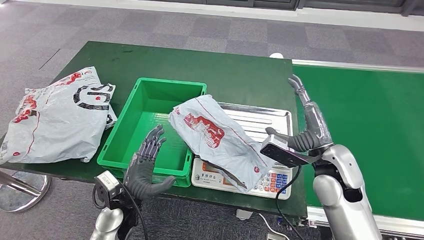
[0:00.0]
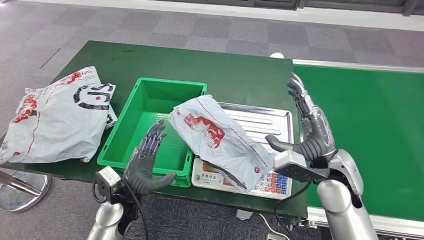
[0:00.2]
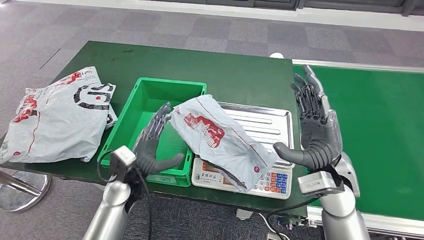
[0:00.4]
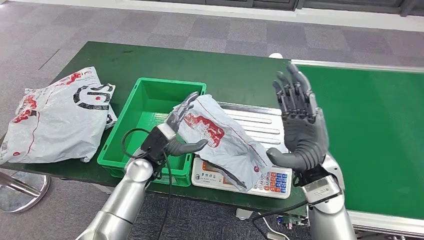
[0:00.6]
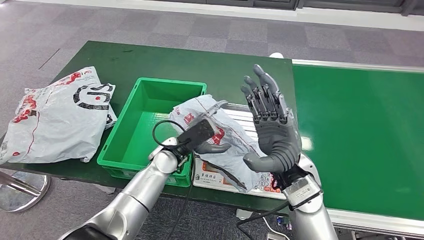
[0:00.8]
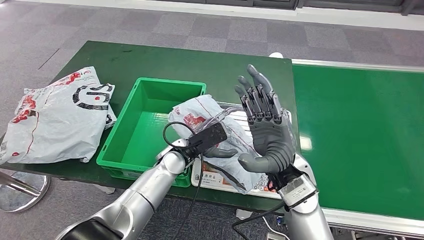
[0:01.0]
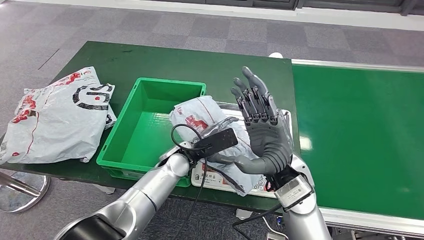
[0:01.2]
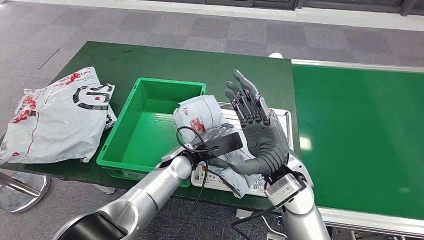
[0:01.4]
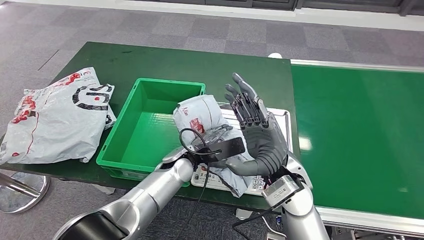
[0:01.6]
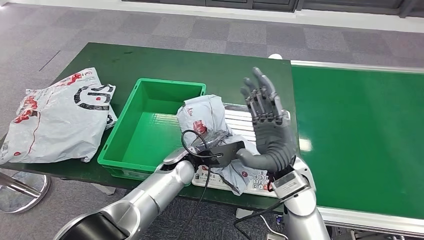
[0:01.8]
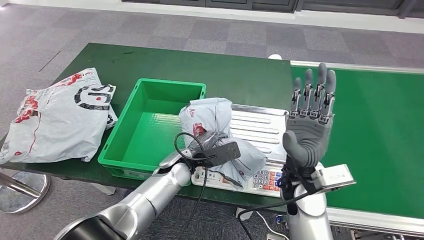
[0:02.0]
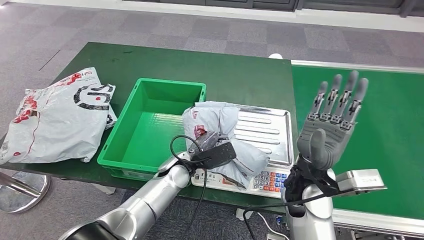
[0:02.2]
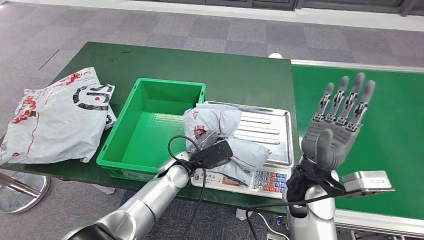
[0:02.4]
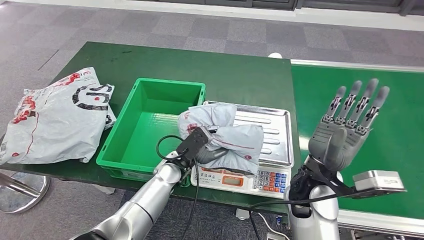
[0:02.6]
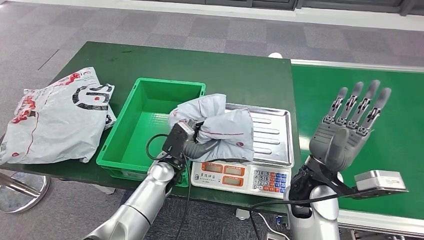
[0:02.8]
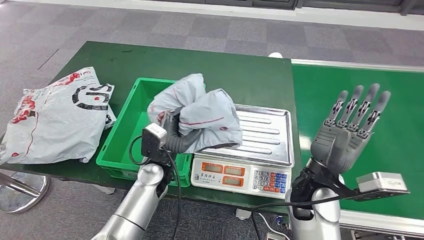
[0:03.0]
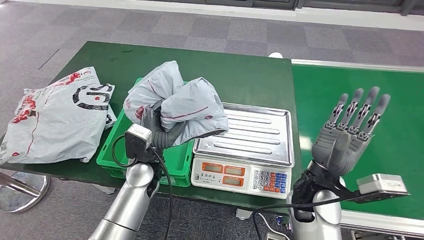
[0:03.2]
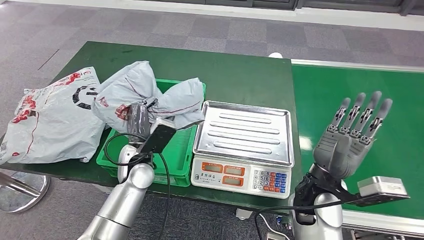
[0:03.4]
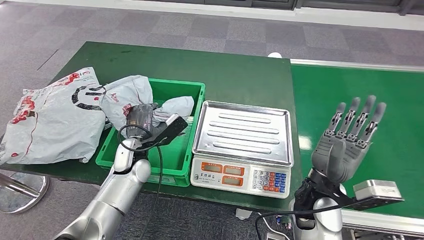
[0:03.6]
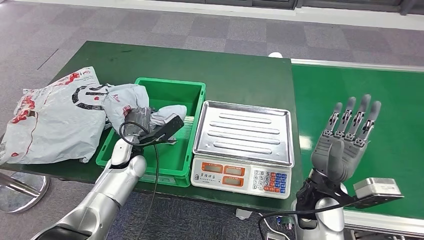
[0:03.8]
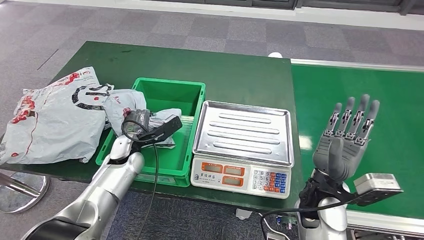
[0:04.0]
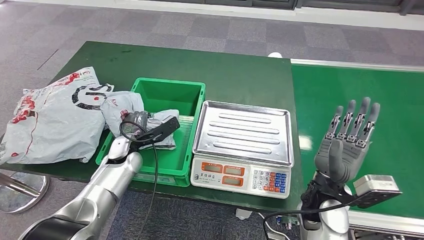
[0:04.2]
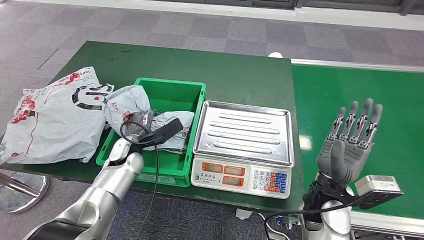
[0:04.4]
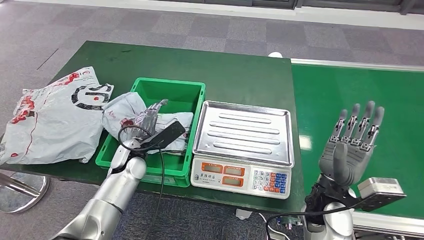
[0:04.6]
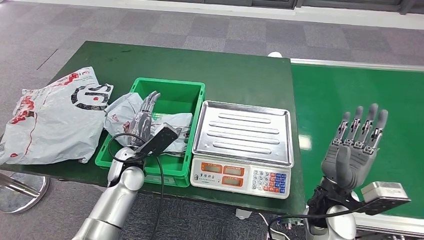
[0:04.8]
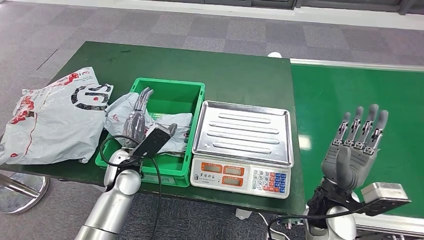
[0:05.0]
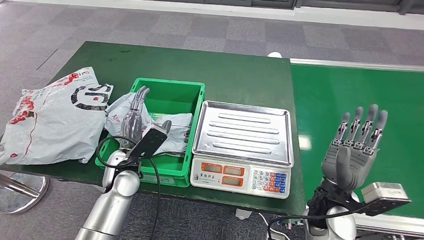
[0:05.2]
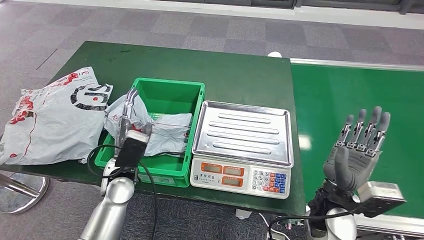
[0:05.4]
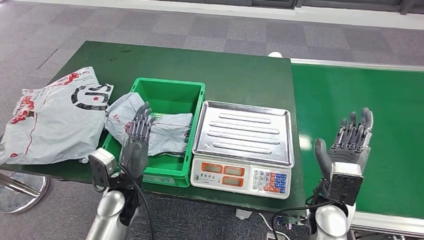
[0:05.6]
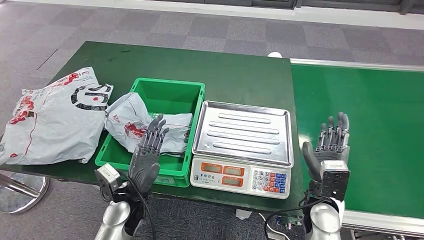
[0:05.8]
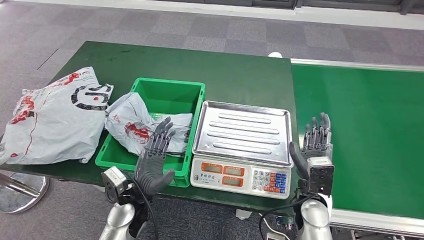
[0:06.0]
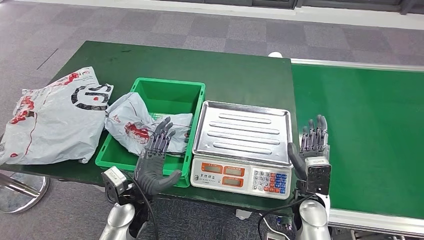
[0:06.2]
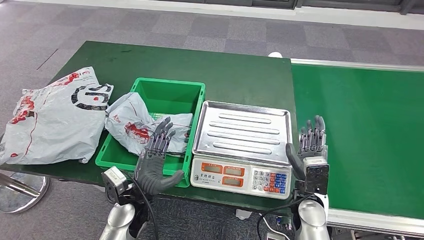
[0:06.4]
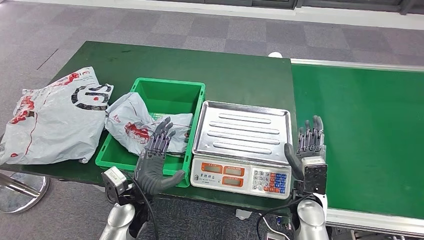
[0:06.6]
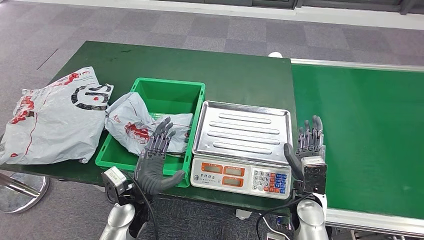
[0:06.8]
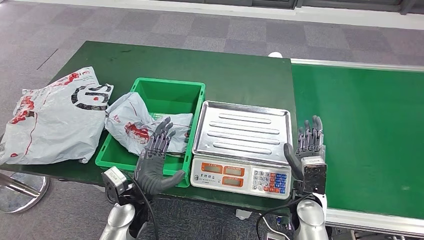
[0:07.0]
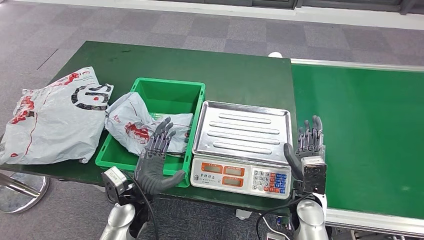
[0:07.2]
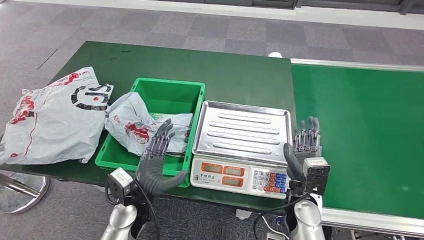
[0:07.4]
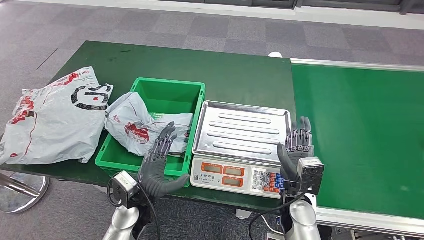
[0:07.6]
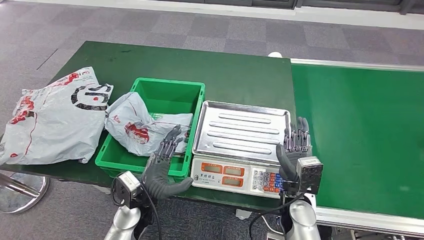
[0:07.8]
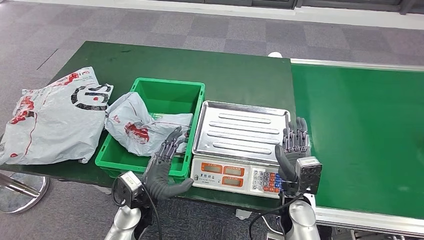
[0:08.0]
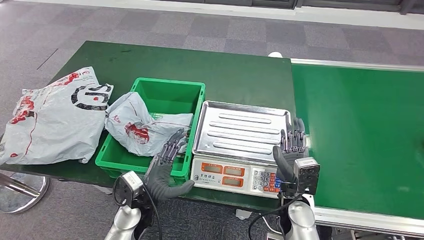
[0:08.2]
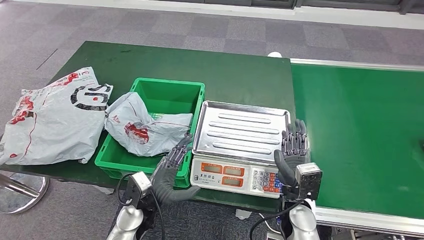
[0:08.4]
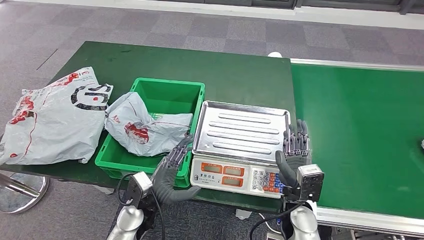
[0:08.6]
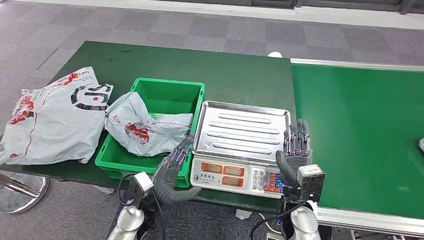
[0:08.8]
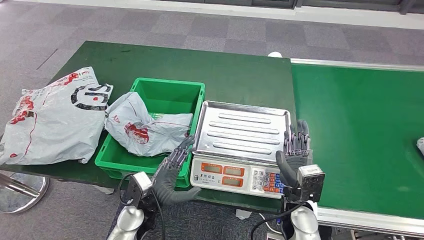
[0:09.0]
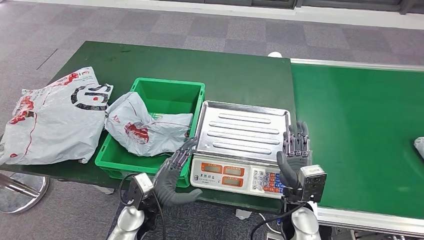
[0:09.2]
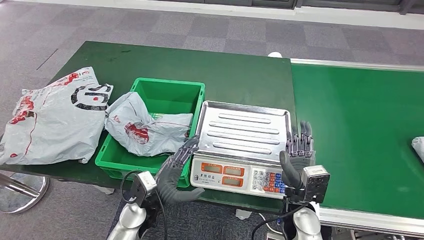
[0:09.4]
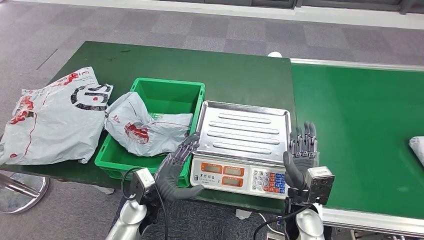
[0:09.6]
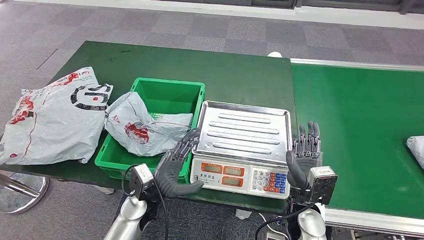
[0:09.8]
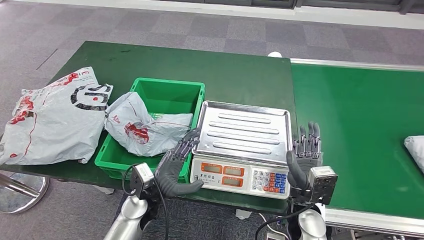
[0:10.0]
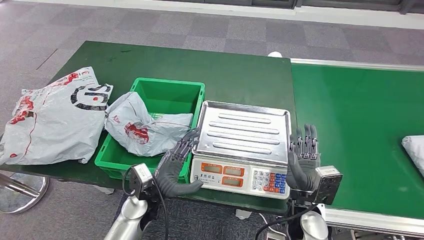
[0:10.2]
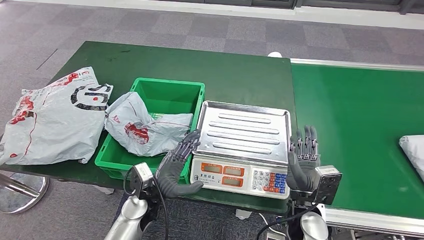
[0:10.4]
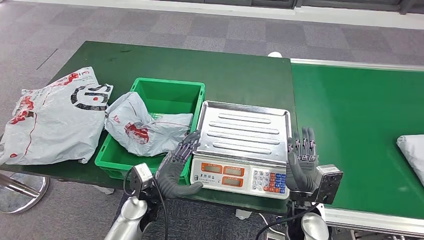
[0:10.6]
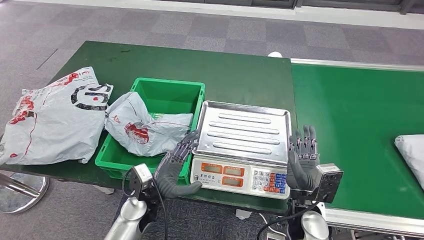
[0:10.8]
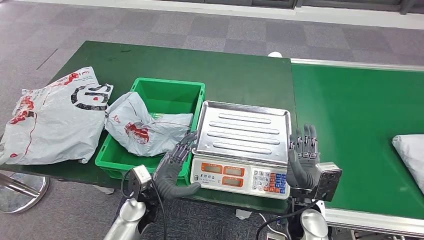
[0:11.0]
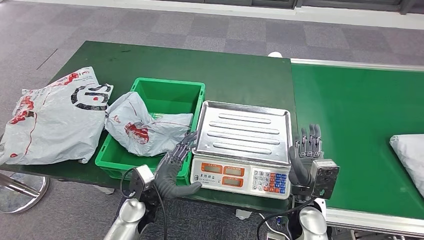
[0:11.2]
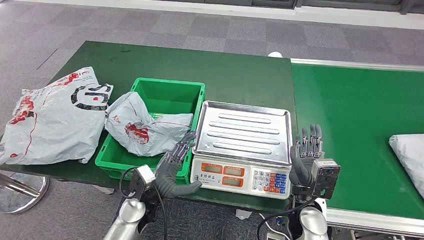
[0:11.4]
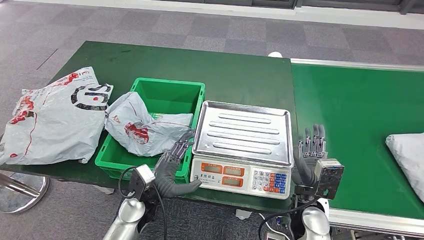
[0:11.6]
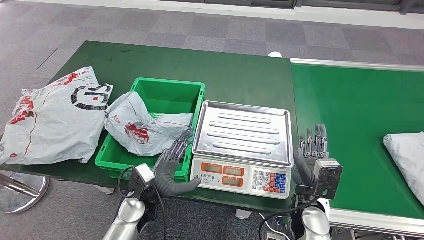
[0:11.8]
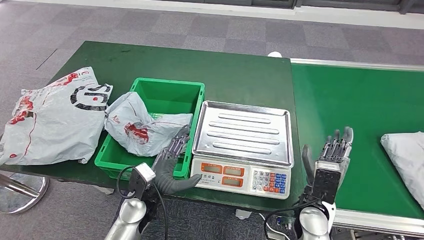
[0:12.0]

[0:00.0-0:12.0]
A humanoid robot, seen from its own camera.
Step, 0:00.4 to 0:03.6: Pick up the parcel from the inbound machine.
Step, 0:03.8 to 0:06.0: Put the parcel inside the courier box.
0:04.4 to 0:06.0: The right hand is displaced downward by about 5 cm, while the left hand heads backward, covering roughly 15 cm.
0:06.0 to 0:10.4: The hands stay close to where they were, moving slightly.

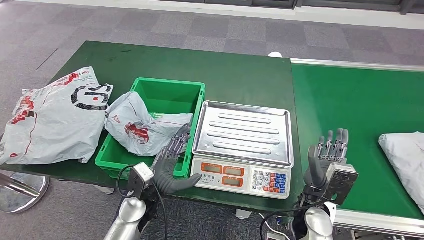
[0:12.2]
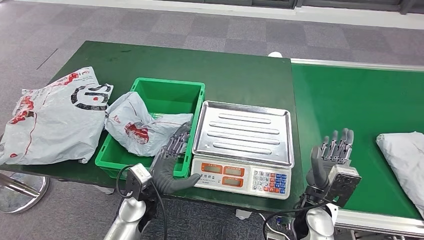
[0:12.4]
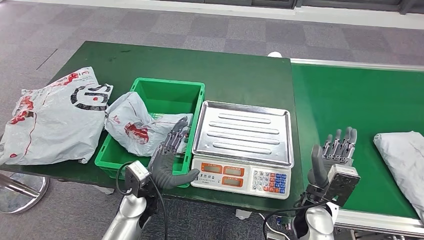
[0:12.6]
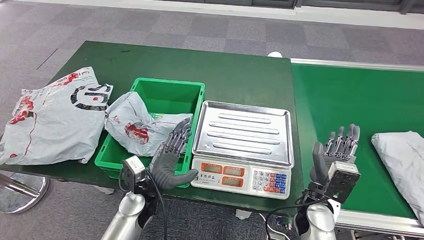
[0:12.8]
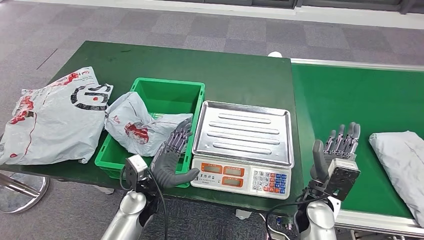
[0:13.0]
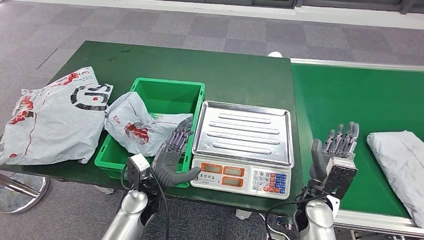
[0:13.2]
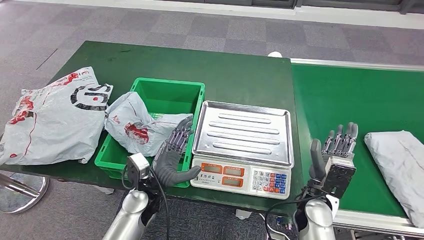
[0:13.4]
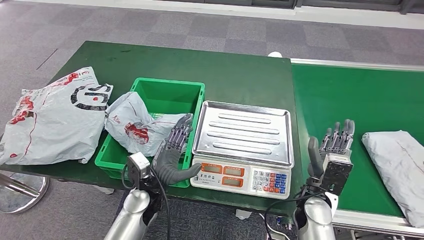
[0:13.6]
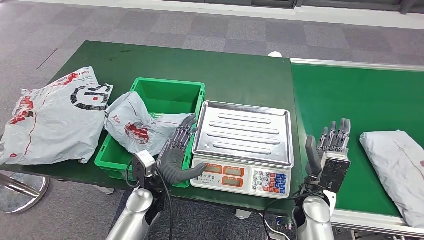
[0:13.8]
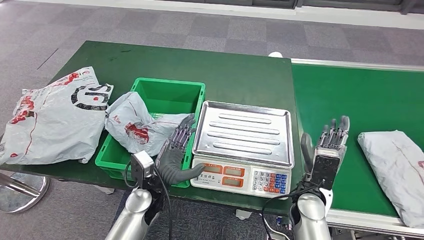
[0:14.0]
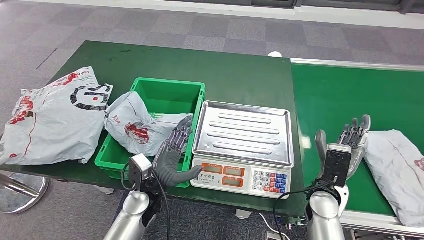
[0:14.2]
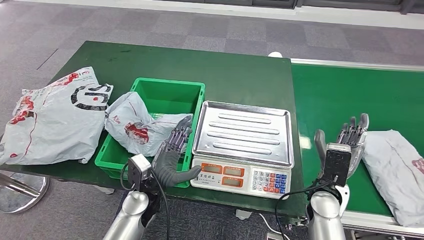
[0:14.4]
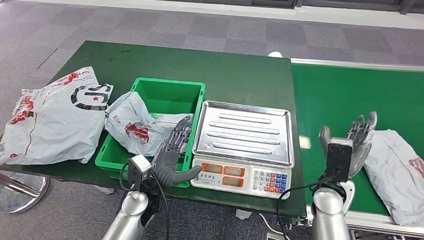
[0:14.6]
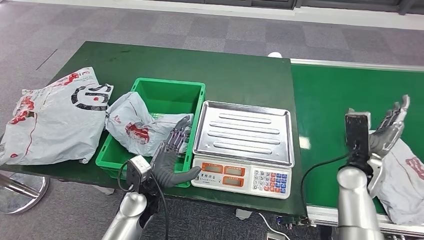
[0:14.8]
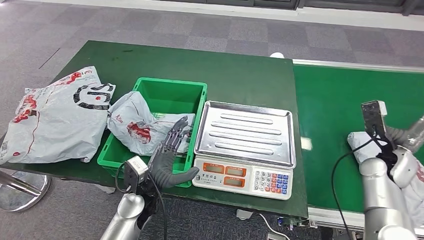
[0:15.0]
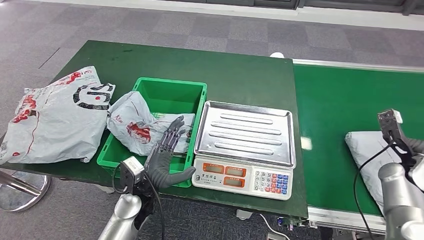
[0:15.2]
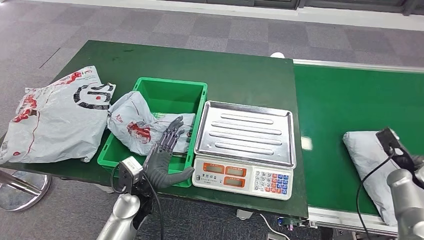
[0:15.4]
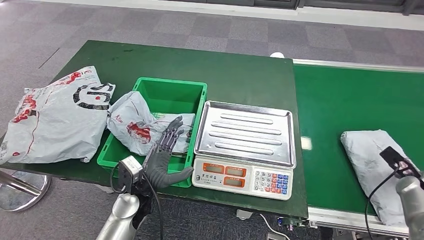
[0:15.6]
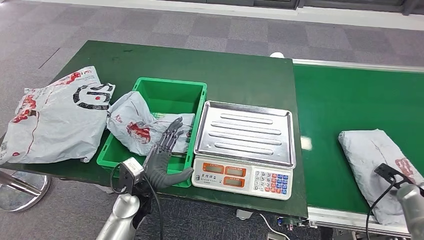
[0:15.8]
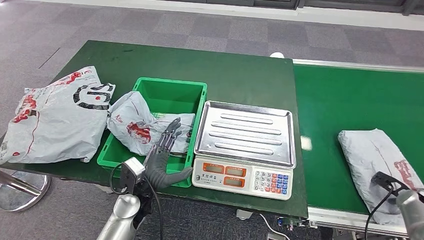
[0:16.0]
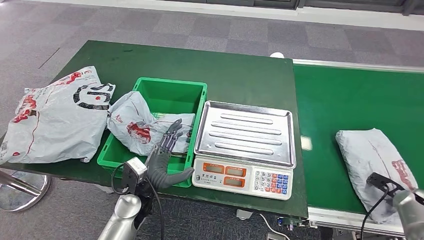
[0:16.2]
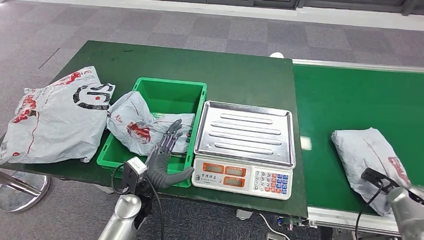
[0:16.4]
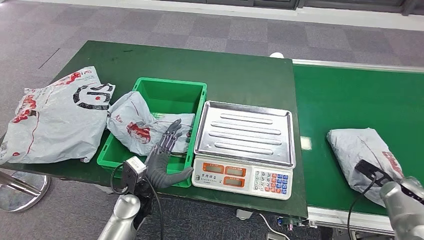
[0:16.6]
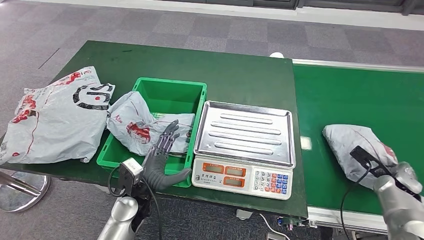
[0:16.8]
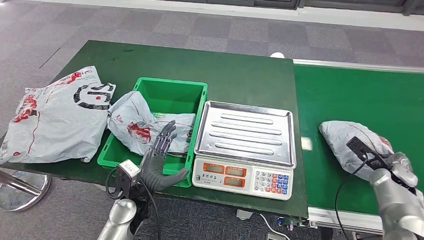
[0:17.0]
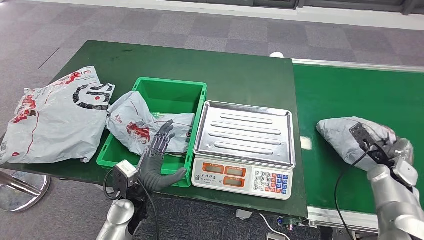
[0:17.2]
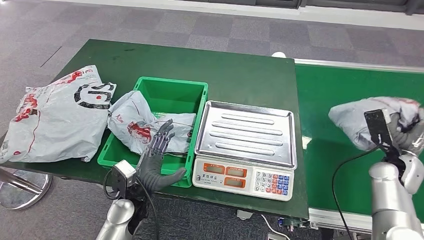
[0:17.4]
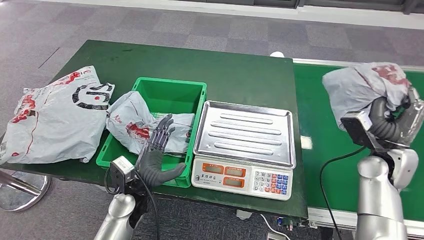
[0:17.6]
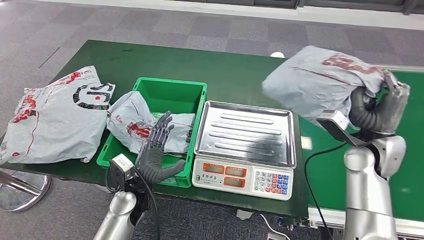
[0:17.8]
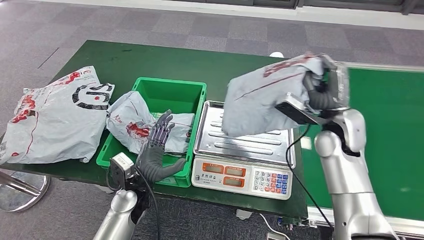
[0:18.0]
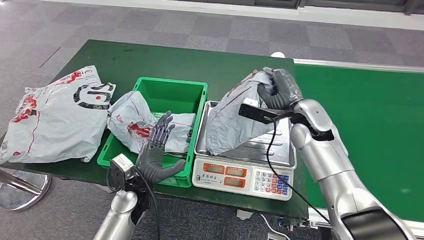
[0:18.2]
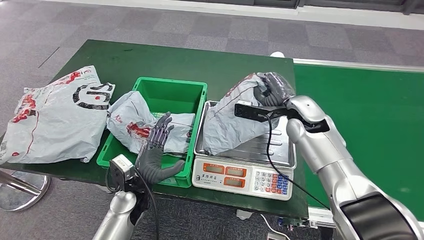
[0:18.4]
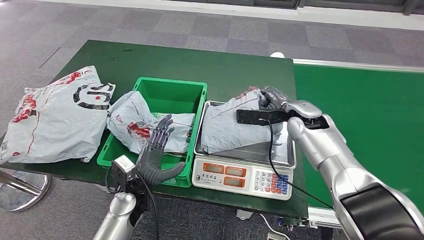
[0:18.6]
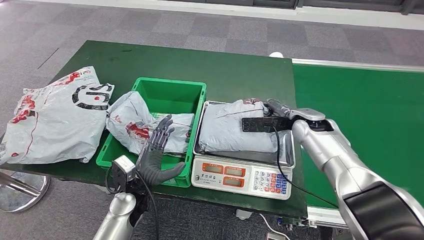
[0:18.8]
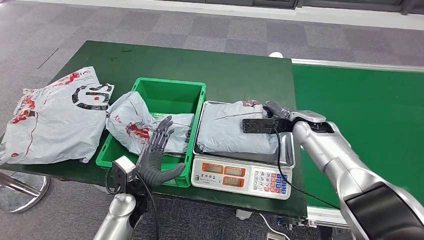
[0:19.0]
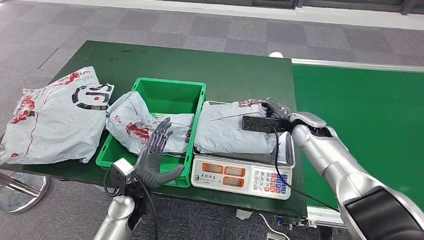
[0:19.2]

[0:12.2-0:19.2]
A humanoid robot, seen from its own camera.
Step, 0:12.2 to 0:17.6: Pick up the parcel from the conveyor belt.
0:12.2 to 0:13.6: There are only small adjustments of the hands.
0:15.0 to 0:16.4: The right hand is displaced to the right, downward and backward by roughly 15 cm.
